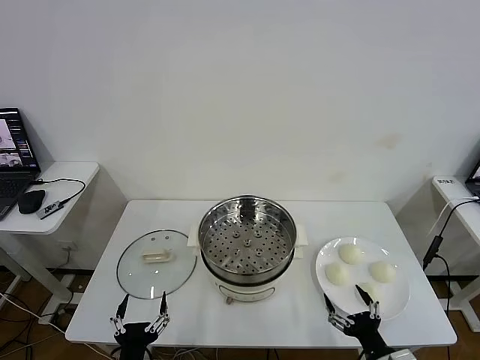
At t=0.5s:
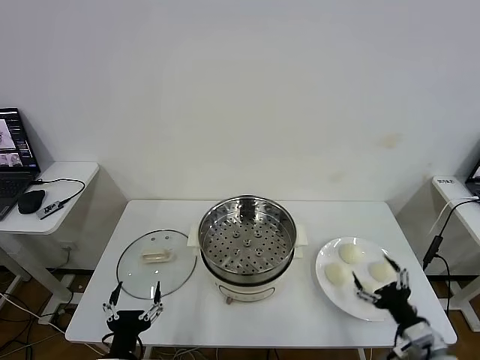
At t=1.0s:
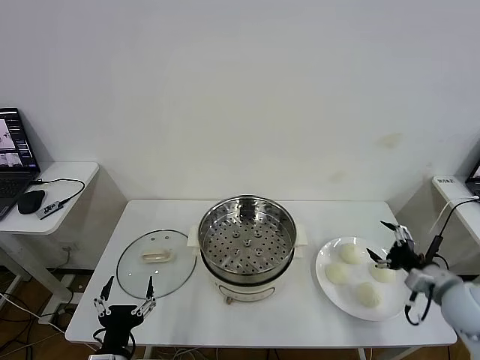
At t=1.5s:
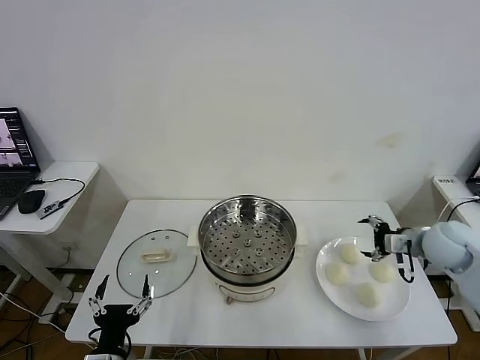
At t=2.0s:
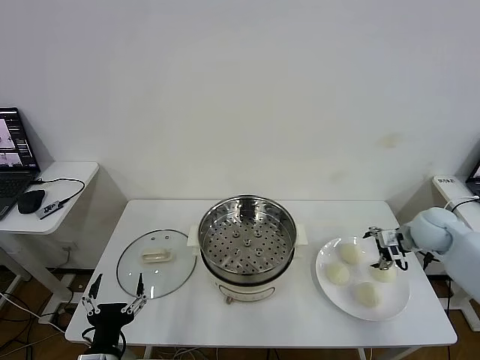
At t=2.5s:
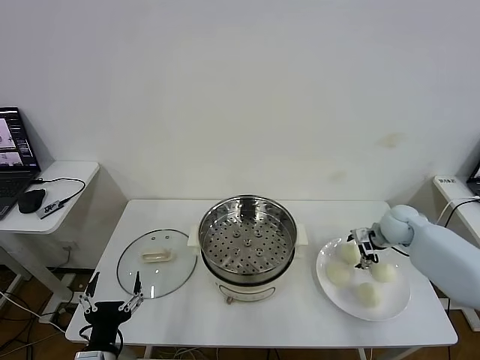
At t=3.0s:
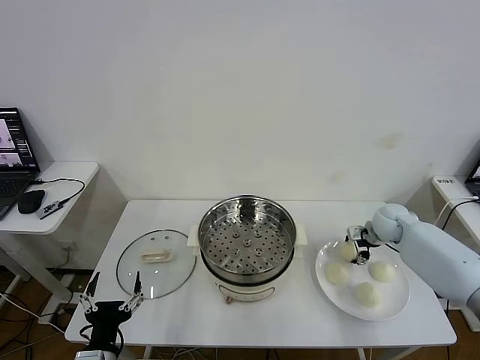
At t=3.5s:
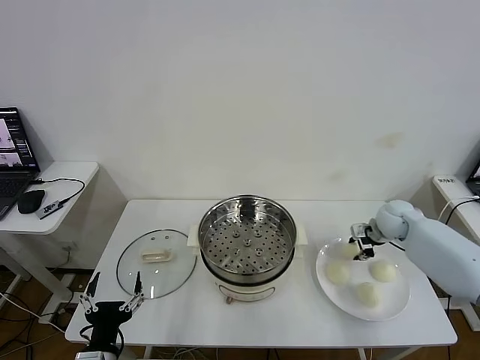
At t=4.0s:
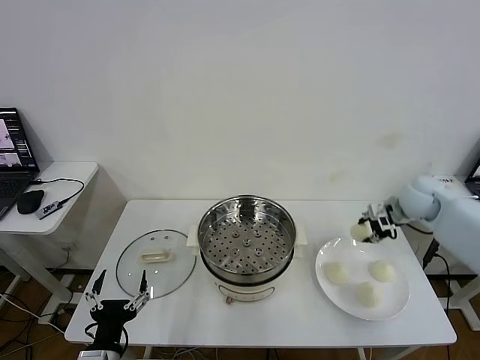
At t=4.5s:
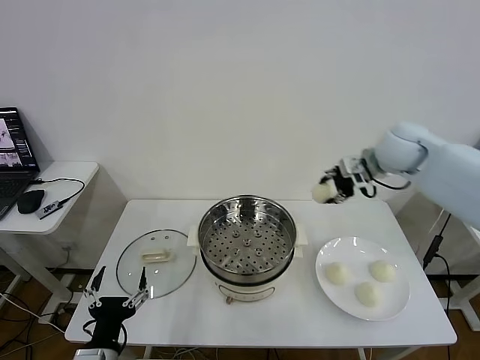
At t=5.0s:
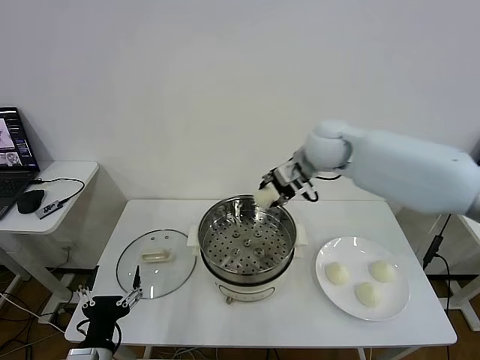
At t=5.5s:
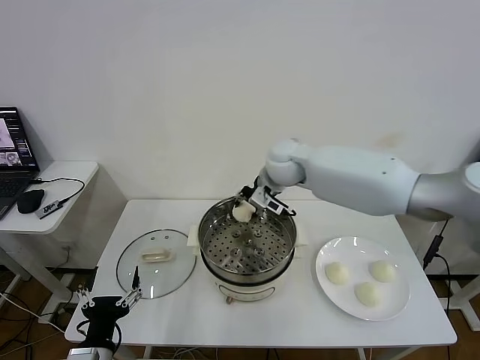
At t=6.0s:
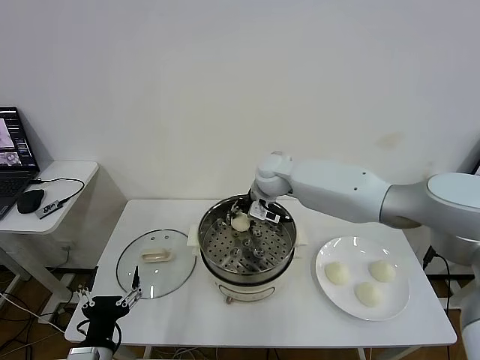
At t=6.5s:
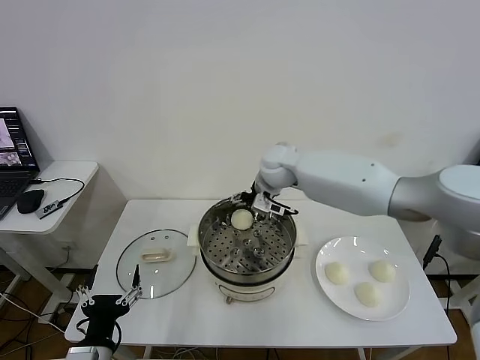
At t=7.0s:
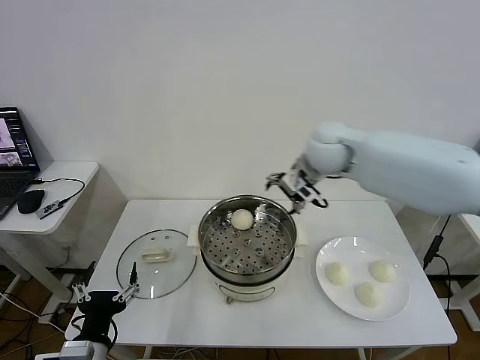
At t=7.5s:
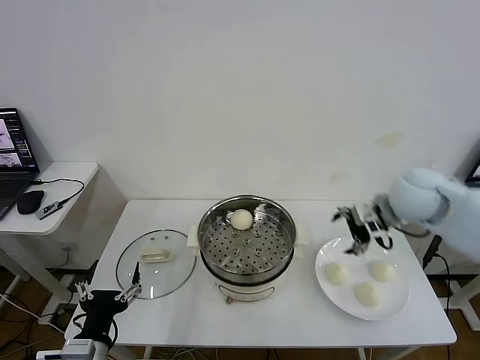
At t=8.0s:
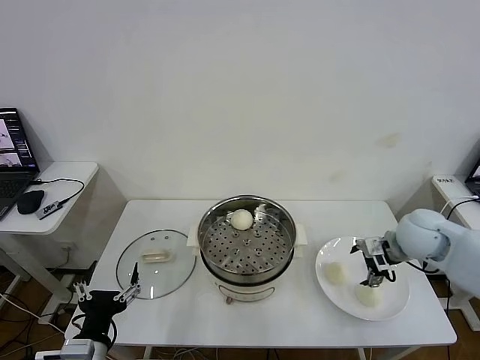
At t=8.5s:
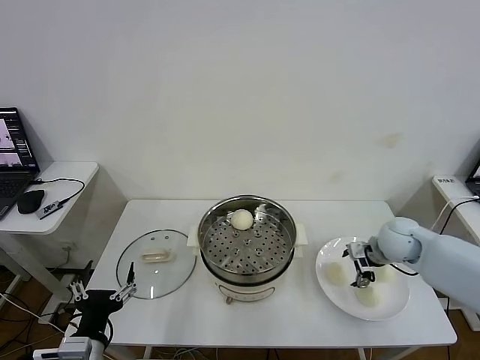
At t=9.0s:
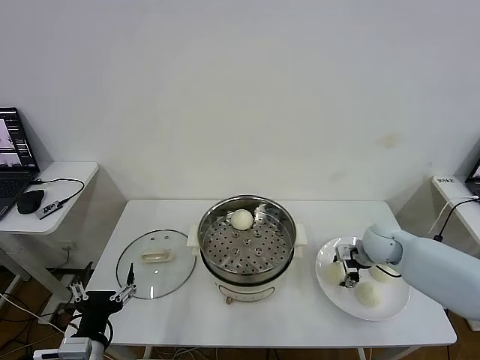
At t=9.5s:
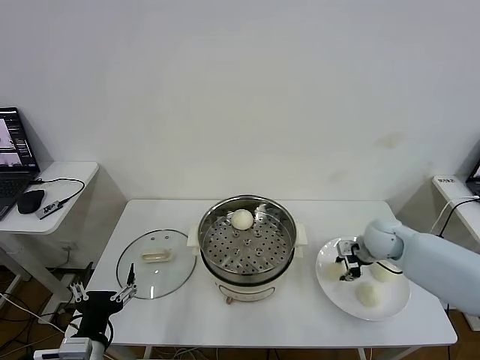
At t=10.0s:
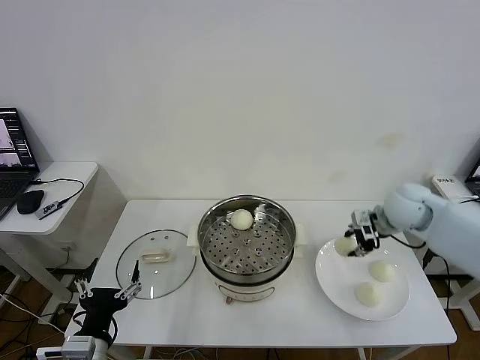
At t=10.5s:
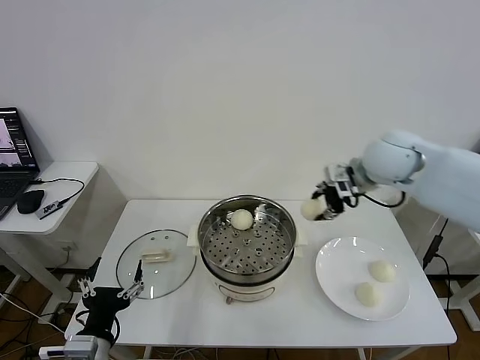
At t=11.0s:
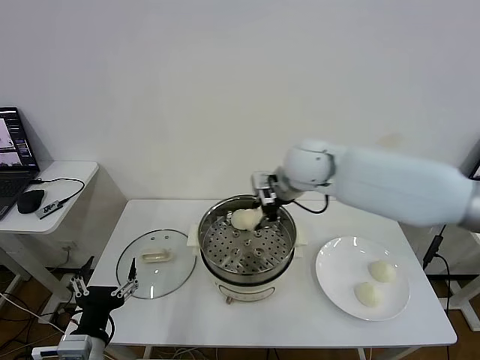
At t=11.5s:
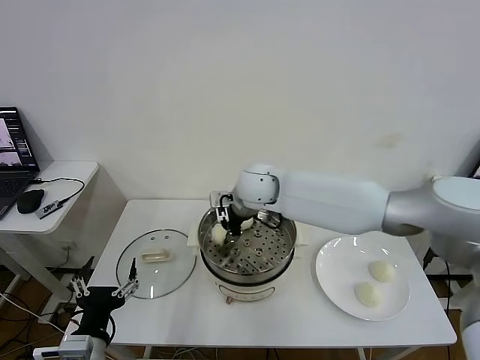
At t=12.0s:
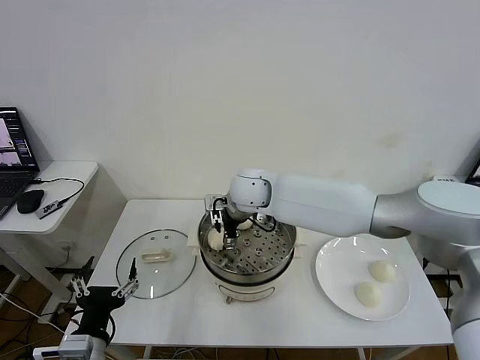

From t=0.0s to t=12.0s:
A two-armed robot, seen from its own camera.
Task of the whole recording: take steamed baozi put them in steamer then cover it.
Step, from t=0.0s to t=3.0s: Grasp the baozi in the plate with right gripper.
Step, from t=3.5s to t=6.0s: Place the baozi on the steamer with right gripper.
Step, from t=6.5s to t=9.0s: Grasp the baozi in the plate with right gripper.
Step, from t=9.5s to t=11.5s: Place the baozi on the steamer with right gripper.
From t=2.0s to t=4.0s: The right gripper travels upward by about 10 cm, and closes.
From t=4.0s to t=6.0s: The right gripper moves to the left, about 30 cm.
From t=6.0s to t=8.0s: The right gripper goes about 35 cm to the right and backward, and opens its fingers.
From t=8.0s to t=10.0s: The right gripper travels upward and forward by roughly 10 cm, and closes its fingers.
From t=10.0s to t=12.0s: The right gripper goes approximately 35 cm to the left, and opens up.

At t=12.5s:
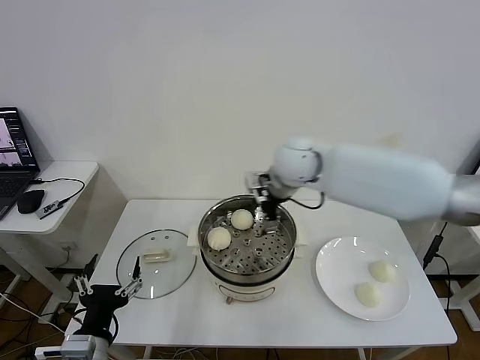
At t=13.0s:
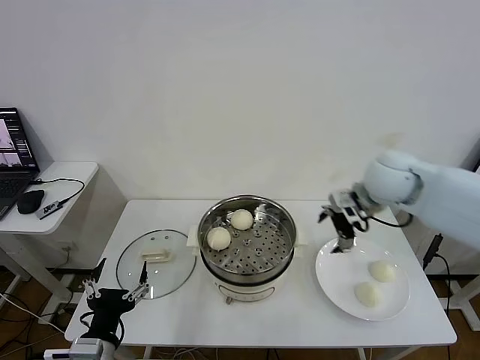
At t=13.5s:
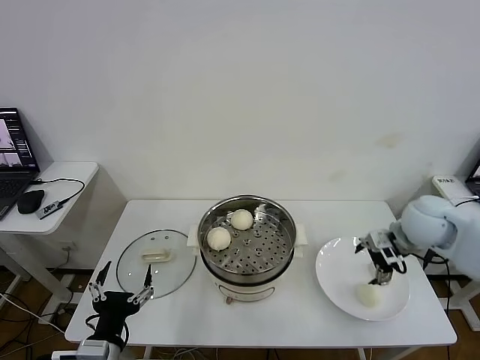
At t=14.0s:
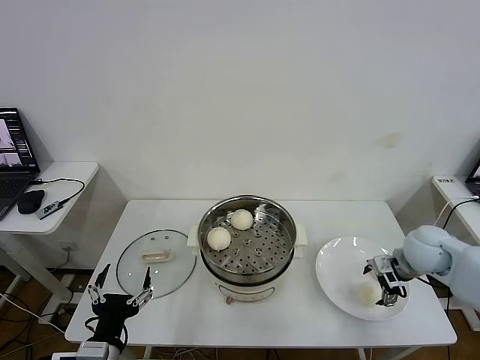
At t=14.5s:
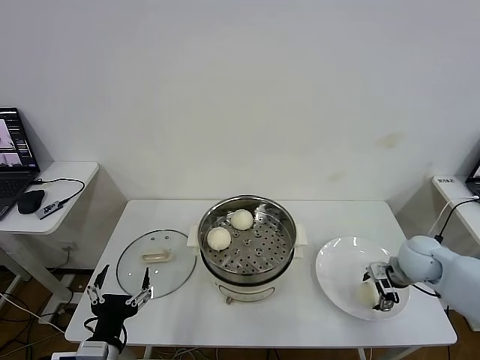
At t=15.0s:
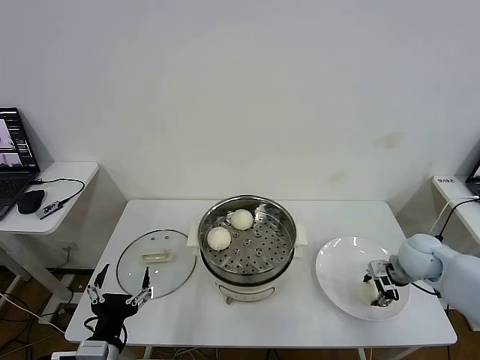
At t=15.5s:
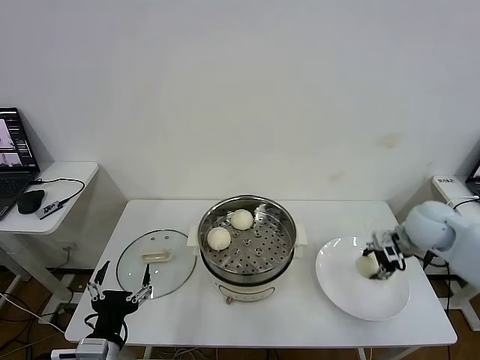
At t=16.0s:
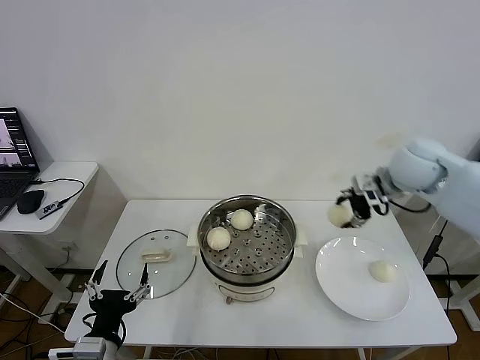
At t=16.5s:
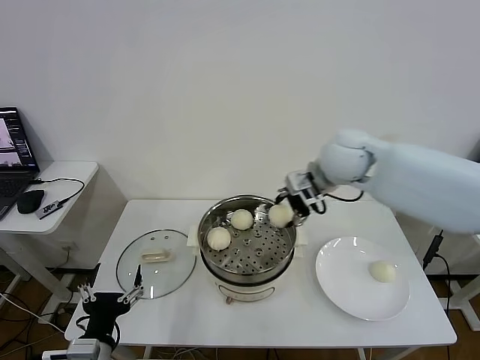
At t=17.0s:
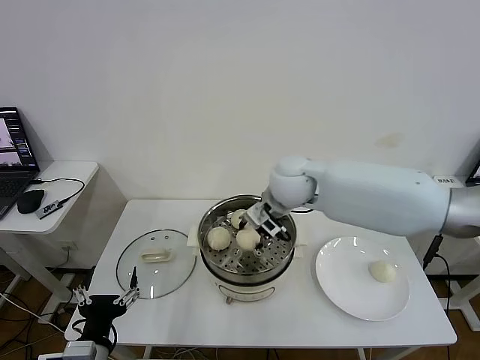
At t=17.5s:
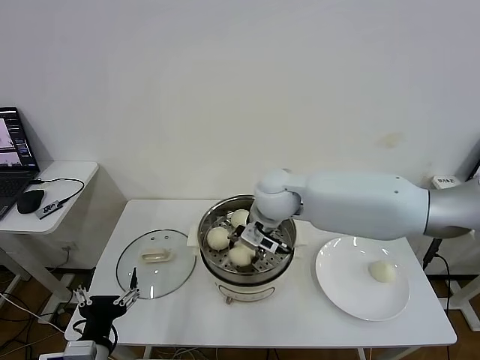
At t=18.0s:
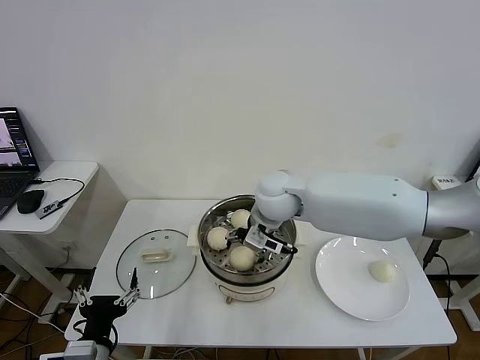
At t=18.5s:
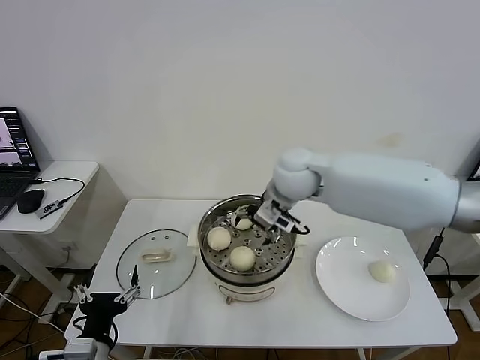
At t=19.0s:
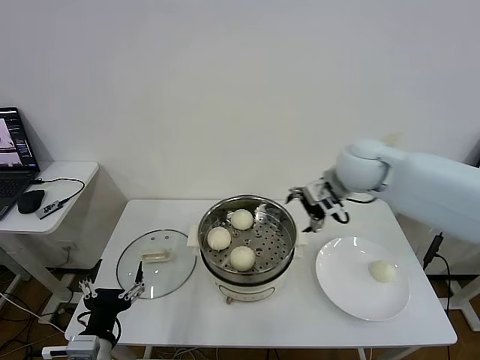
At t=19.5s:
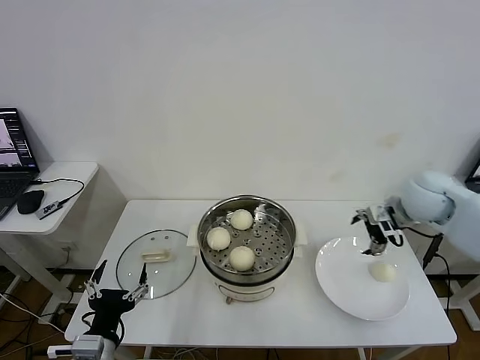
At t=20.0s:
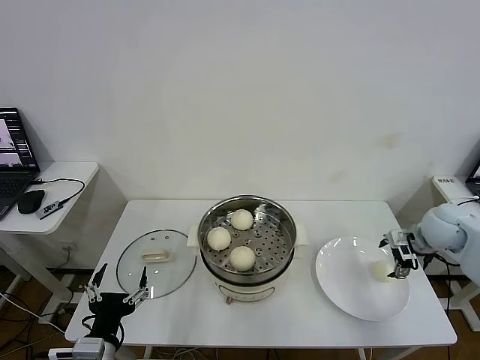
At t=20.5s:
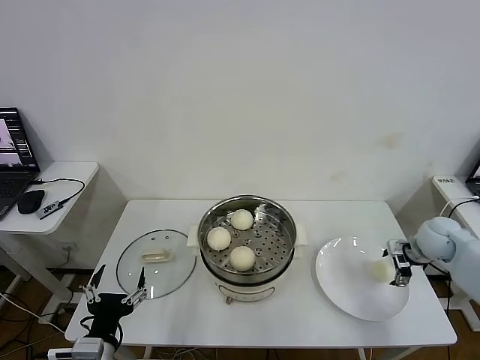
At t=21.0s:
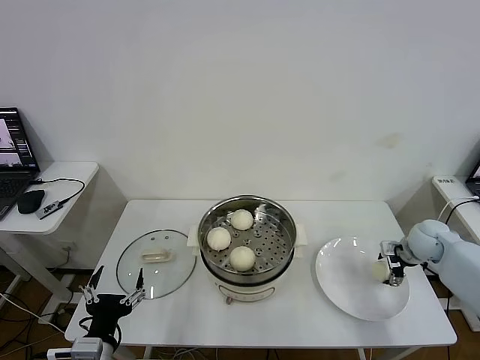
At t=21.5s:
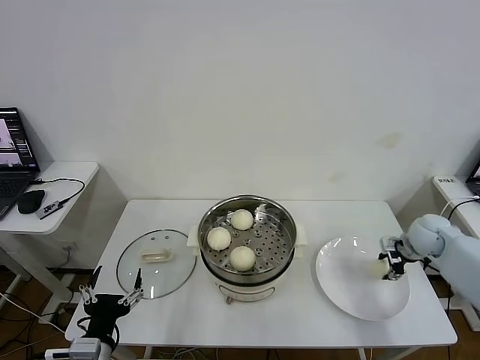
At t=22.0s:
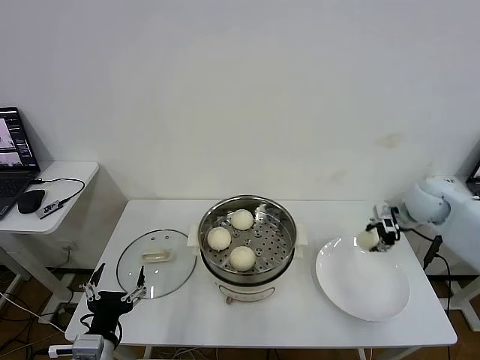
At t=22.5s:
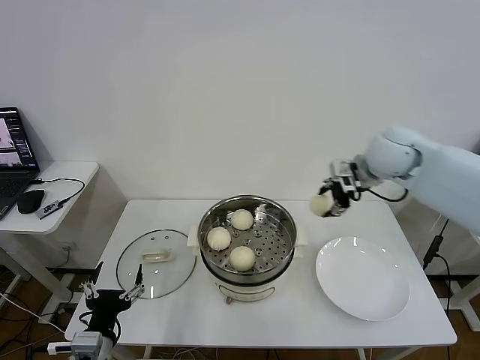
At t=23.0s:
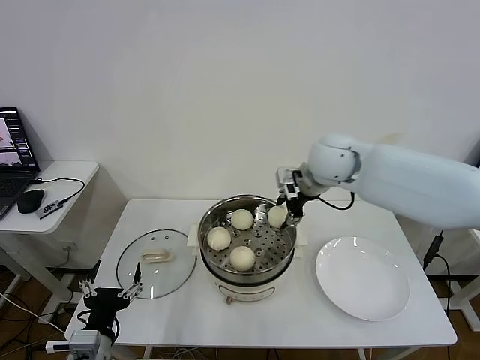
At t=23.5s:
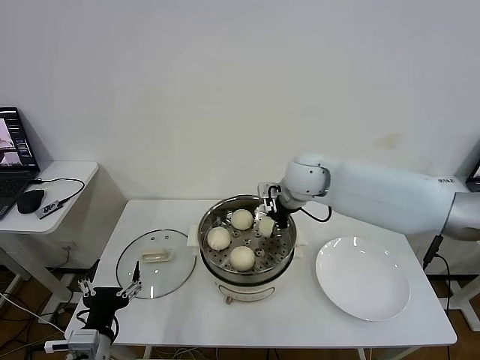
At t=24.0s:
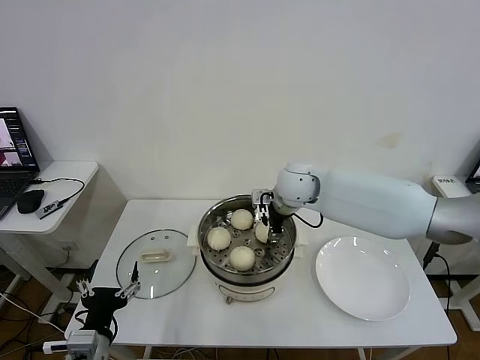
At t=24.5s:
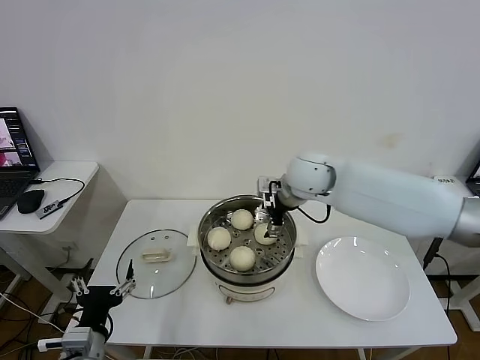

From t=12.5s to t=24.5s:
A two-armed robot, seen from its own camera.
Task of the whole recording: take steamed baozi put them in steamer then cover it.
Step, from t=12.5s to t=14.5s: Grasp the baozi in the plate with right gripper.
Step, from t=15.0s to t=17.5s: Place the baozi on the steamer with right gripper.
Step, from t=18.5s to t=21.0s: Grasp the baozi in the plate with right gripper.
Step, from t=21.5s to t=24.0s: Place the baozi on the steamer with right gripper.
From t=12.5s to t=14.5s: The right gripper goes roughly 35 cm to the right and downward.
From t=14.5s to t=16.5s: The right gripper goes about 30 cm to the left and upward, and closes.
From t=16.5s to t=18.5s: The right gripper heads to the left, covering roughly 5 cm, and opens up.
From t=18.5s to t=20.5s: The right gripper goes approximately 40 cm to the right and downward.
From t=20.5s to t=22.5s: The right gripper travels upward and to the left by about 25 cm, and closes its fingers.
From t=22.5s to t=24.5s: The right gripper moves to the left, some 15 cm, and opens its fingers.

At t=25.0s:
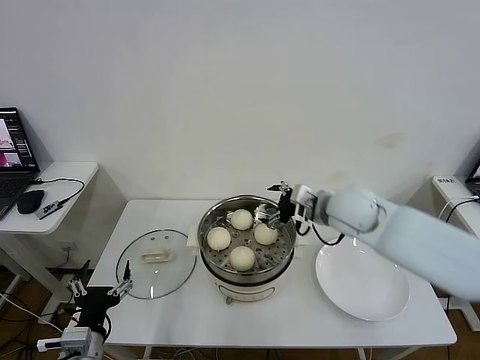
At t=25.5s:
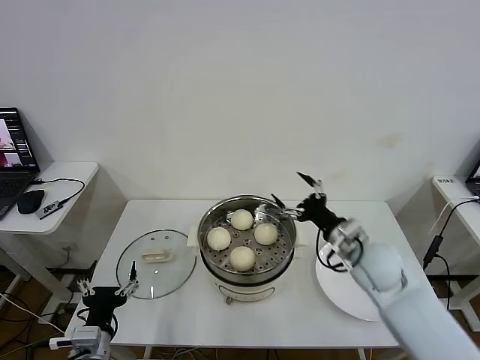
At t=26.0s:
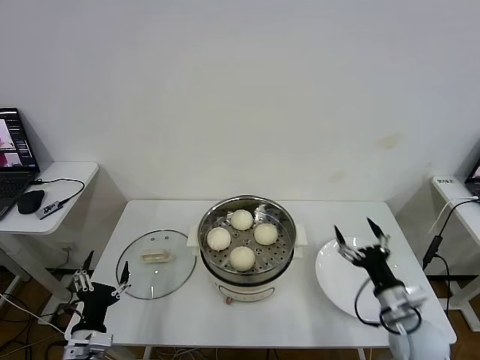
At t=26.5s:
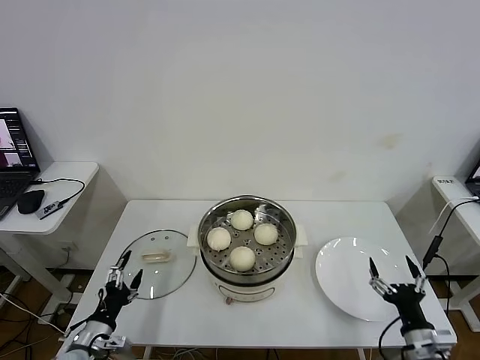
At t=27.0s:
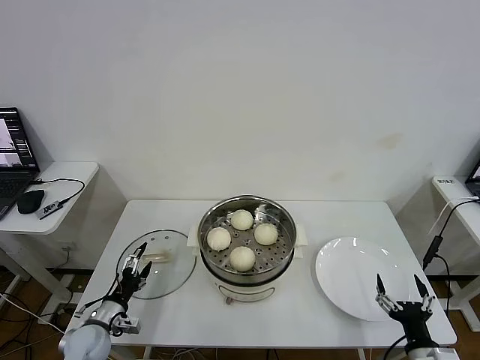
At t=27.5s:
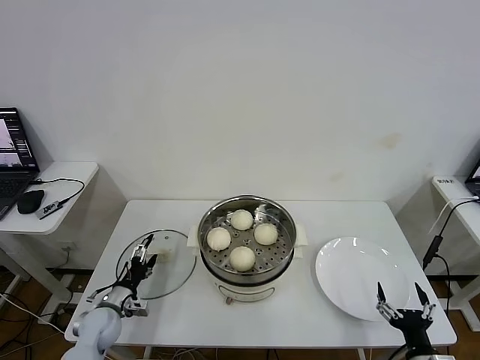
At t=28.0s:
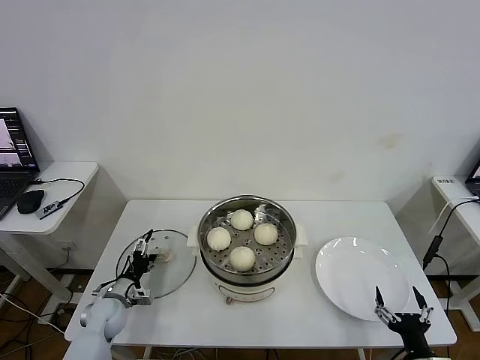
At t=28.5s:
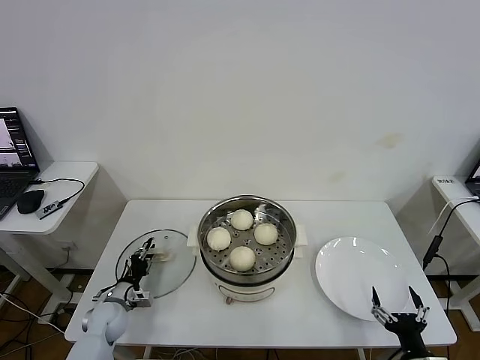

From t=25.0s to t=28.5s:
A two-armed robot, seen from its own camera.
Task of the whole recording: take steamed baozi put them in steamer then cover it.
From t=25.0s to t=27.0s: The left gripper shifts approximately 15 cm downward, forward and to the left. Meanwhile the right gripper moves backward, downward and to the right, some 40 cm.
From t=27.0s to t=28.5s: The left gripper is displaced forward by approximately 10 cm, and closes up.
